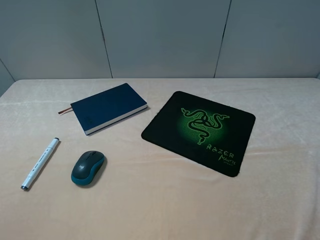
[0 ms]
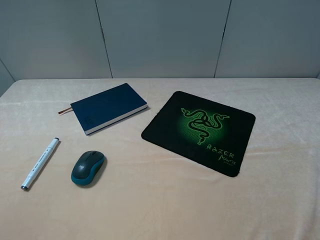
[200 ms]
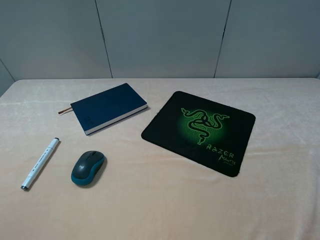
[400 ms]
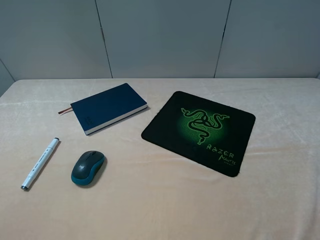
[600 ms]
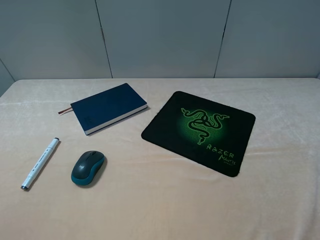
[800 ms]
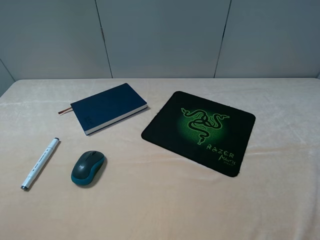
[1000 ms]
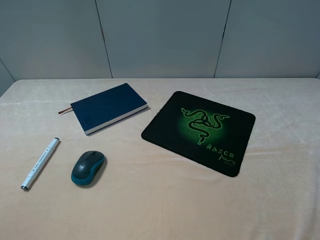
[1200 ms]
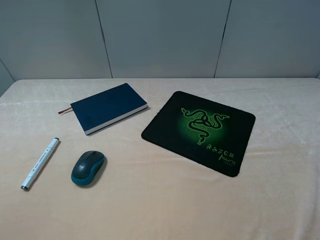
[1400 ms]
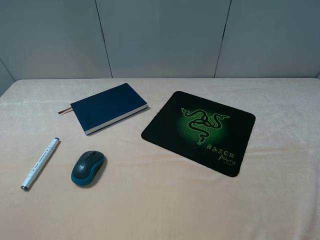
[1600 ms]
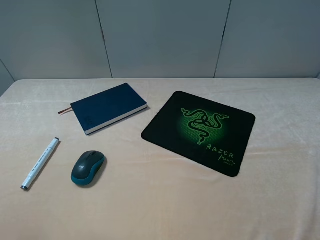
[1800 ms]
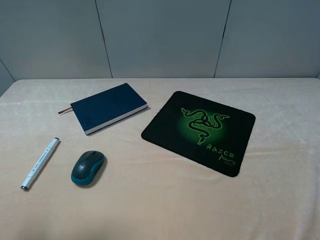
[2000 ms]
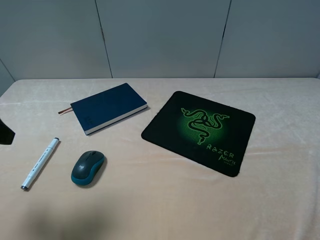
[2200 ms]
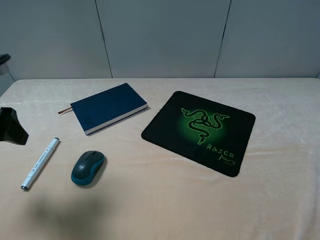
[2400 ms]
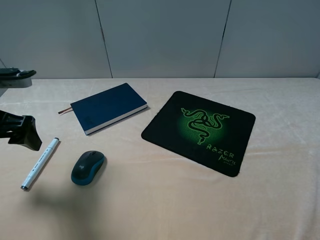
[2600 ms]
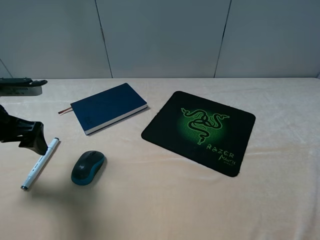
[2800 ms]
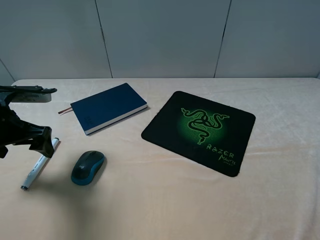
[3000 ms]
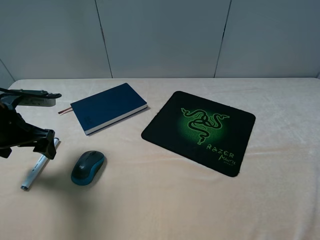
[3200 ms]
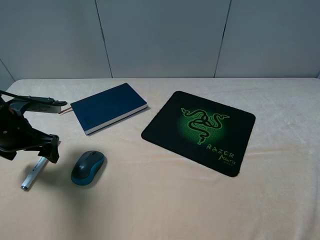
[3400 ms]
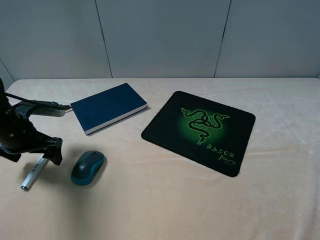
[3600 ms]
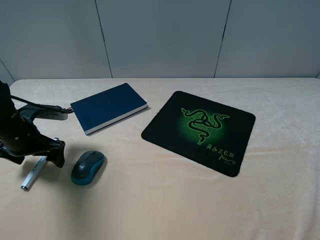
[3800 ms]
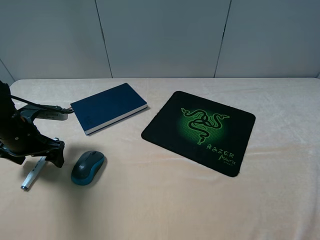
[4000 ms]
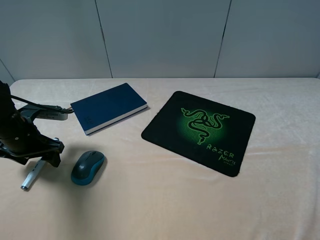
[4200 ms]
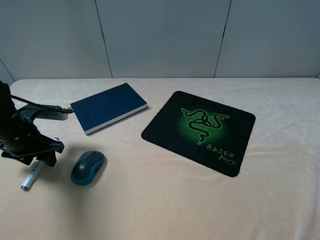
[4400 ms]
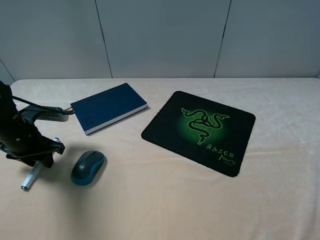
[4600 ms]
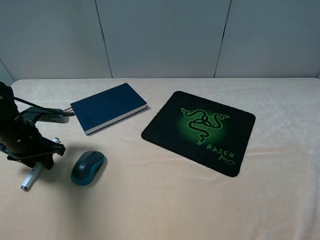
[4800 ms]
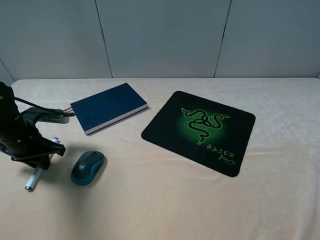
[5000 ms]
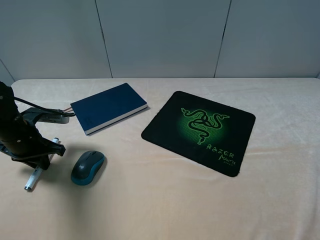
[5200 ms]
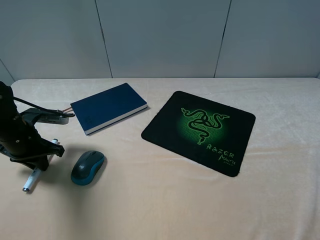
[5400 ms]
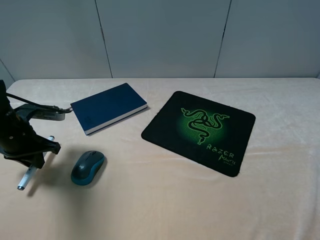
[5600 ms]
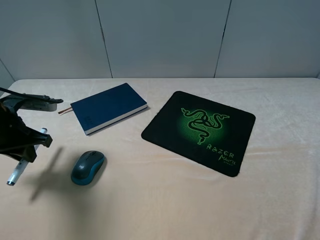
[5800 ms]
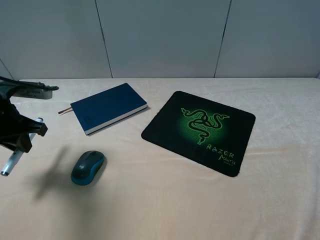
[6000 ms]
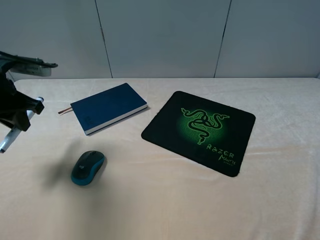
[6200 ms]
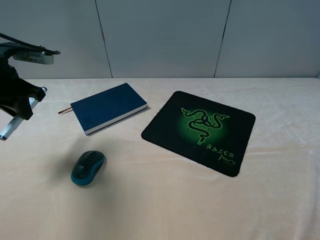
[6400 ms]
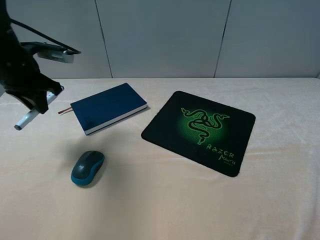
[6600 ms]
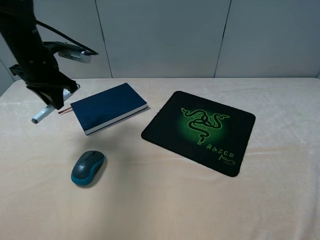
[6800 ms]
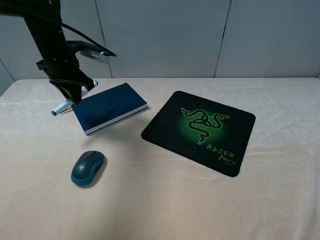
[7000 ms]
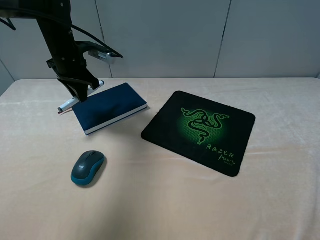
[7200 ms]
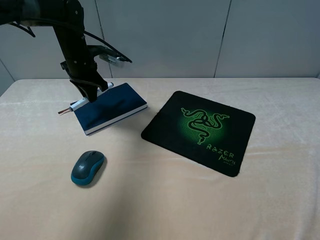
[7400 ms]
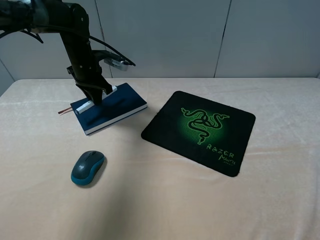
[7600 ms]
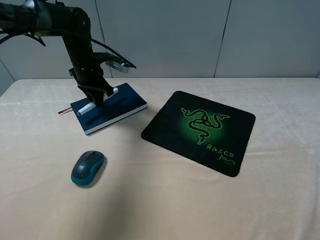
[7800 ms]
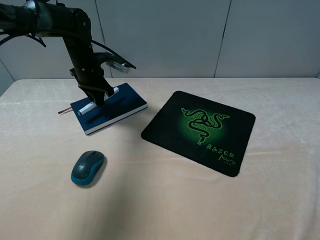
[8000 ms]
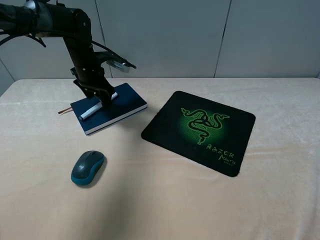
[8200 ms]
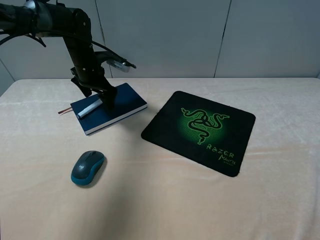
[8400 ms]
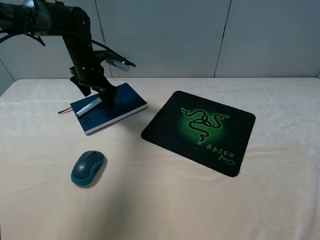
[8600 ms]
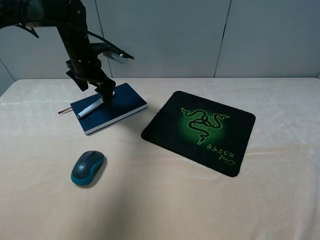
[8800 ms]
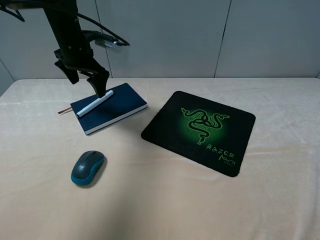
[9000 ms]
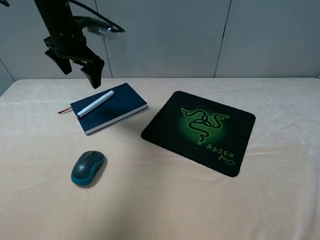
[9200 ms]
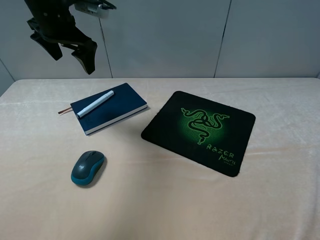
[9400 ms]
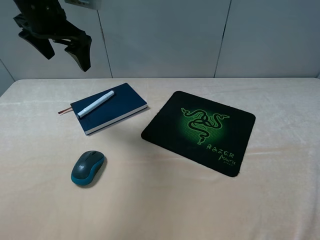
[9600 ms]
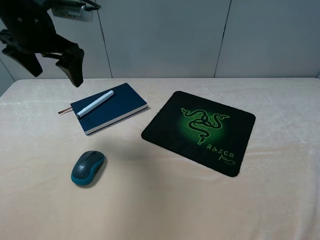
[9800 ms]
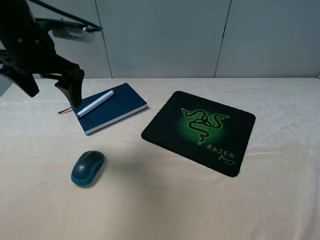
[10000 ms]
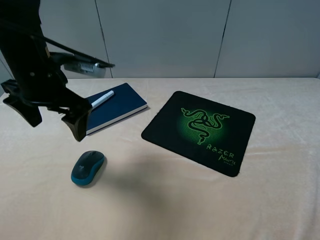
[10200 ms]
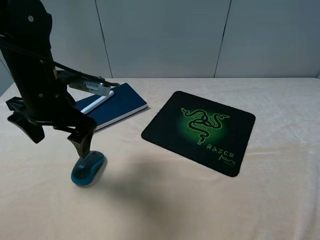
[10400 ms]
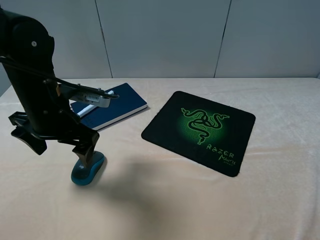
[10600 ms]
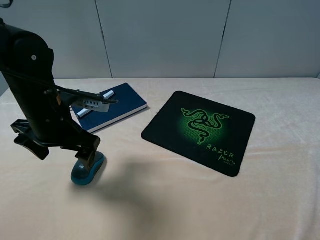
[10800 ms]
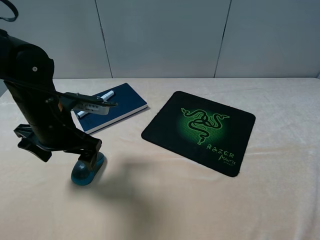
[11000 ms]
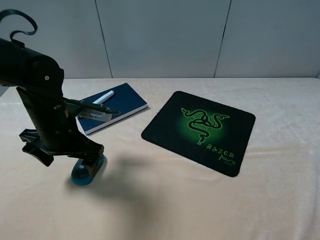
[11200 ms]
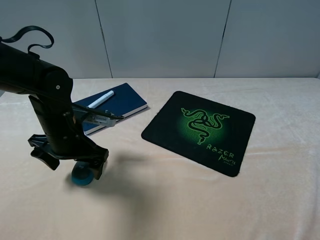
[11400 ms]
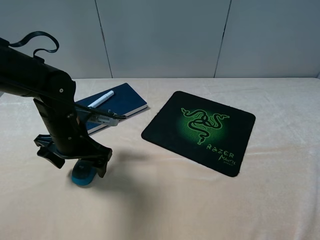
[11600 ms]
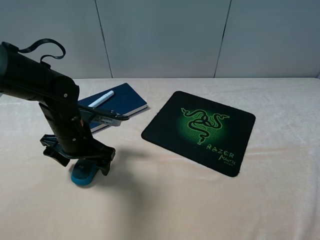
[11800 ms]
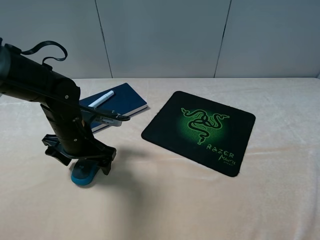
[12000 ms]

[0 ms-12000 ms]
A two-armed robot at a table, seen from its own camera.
Step, 0 ms to 5200 ms: Grasp the marker with the left gripper.
Step, 5400 ms to 8400 ms: Place the marker on the notebook with the left gripper.
1600 ms to 3000 ms: The left gripper moves forward and downward, roughly 25 cm.
3000 ms to 4400 ms: The left gripper shifts roughly 5 cm downward, and closes up.
4400 ms to 6000 ms: The left gripper heads upward, covering some 10 cm, and closes its fingers.
6000 ms to 7600 ms: The left gripper is displaced forward and to the right by roughly 20 cm.
7600 ms to 9000 ms: The left gripper heads upward, covering some 5 cm, and opens.
9000 ms to 10400 ms: The left gripper is displaced backward by some 20 cm.
10400 ms to 12000 ms: The left gripper moves downward, some 10 cm.

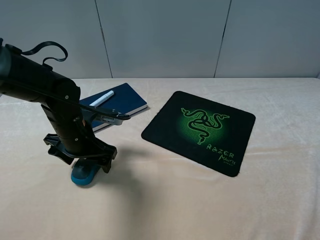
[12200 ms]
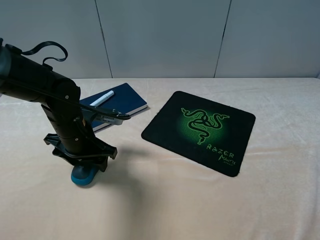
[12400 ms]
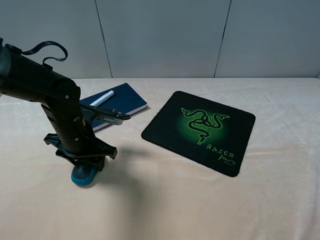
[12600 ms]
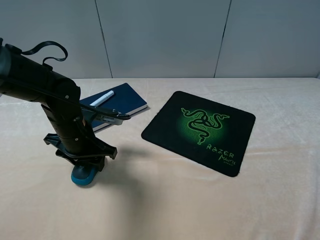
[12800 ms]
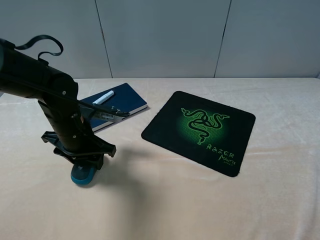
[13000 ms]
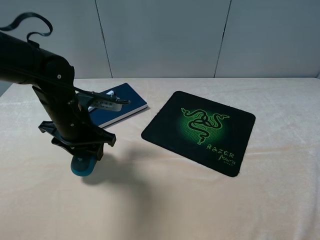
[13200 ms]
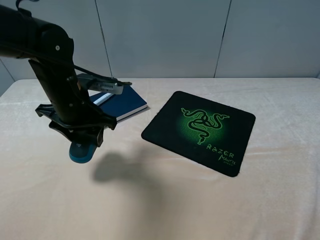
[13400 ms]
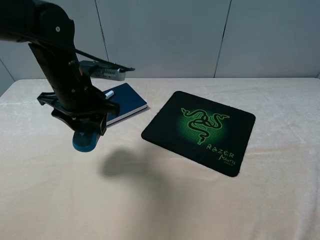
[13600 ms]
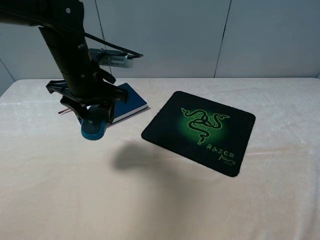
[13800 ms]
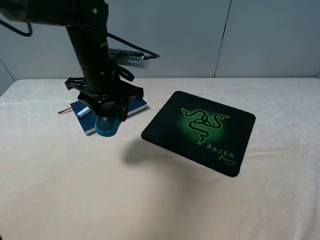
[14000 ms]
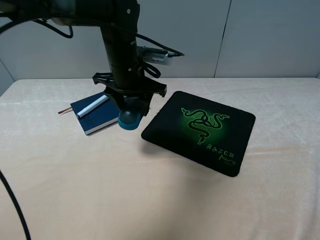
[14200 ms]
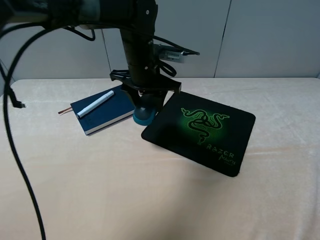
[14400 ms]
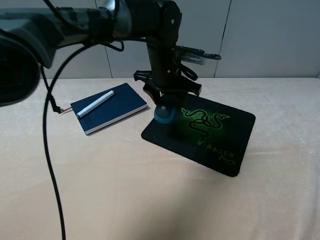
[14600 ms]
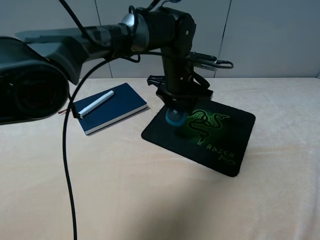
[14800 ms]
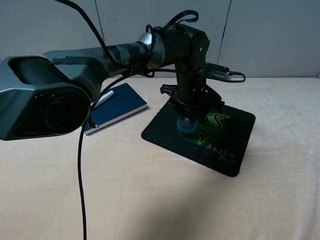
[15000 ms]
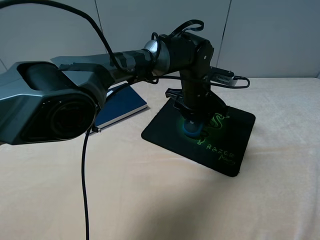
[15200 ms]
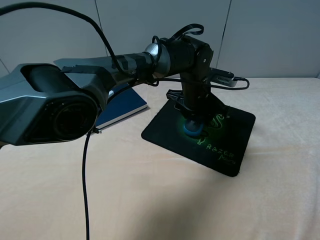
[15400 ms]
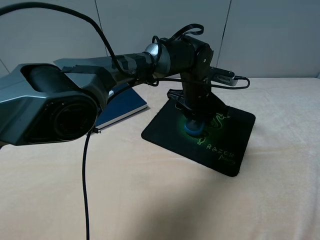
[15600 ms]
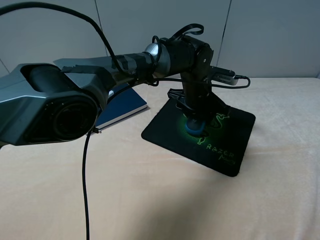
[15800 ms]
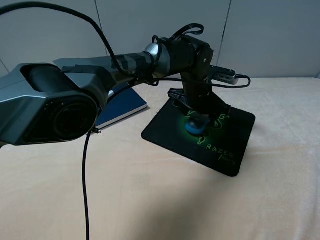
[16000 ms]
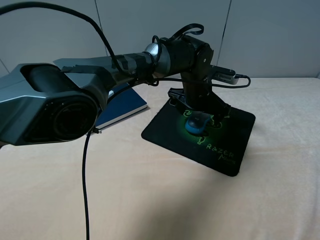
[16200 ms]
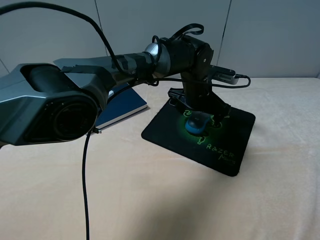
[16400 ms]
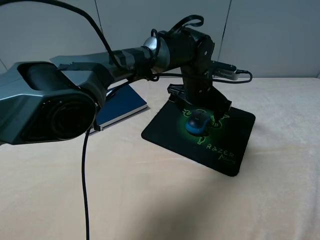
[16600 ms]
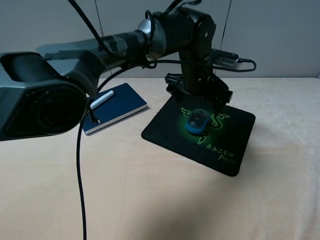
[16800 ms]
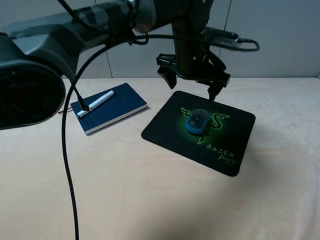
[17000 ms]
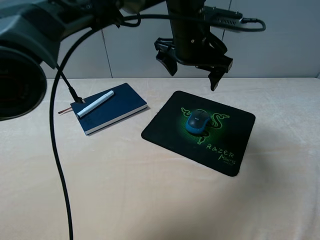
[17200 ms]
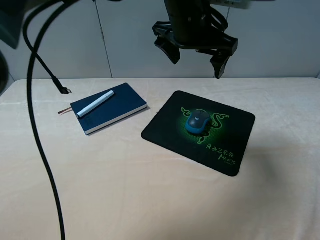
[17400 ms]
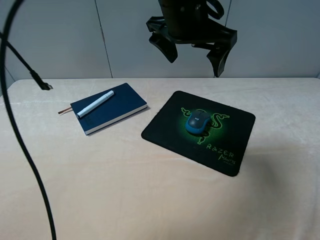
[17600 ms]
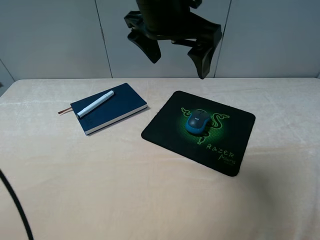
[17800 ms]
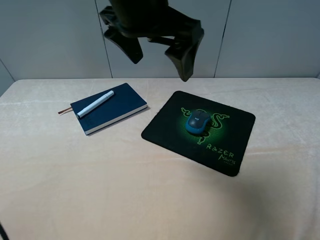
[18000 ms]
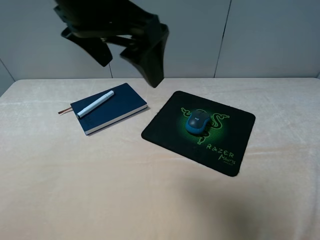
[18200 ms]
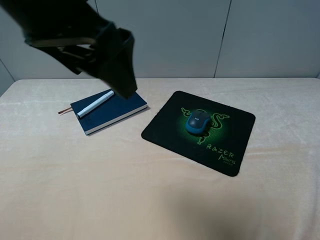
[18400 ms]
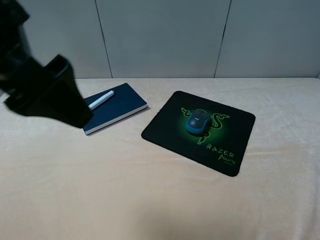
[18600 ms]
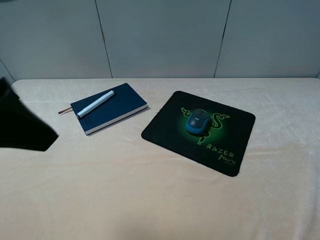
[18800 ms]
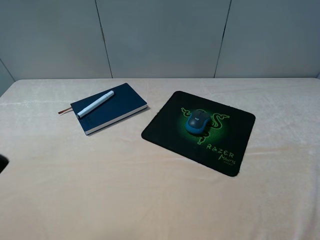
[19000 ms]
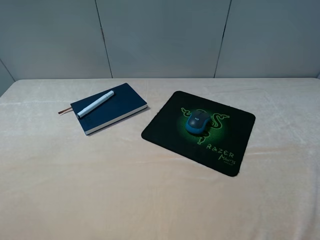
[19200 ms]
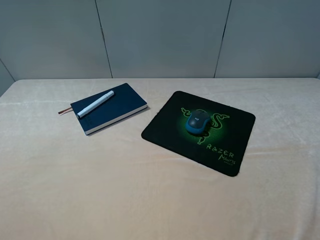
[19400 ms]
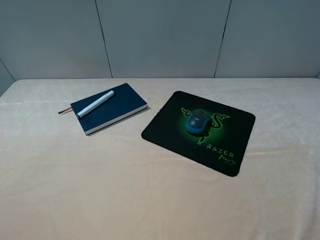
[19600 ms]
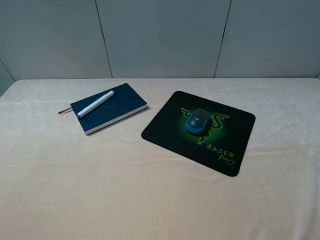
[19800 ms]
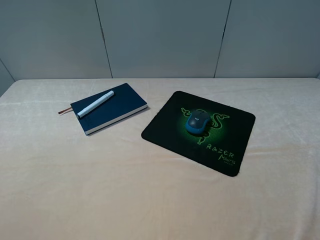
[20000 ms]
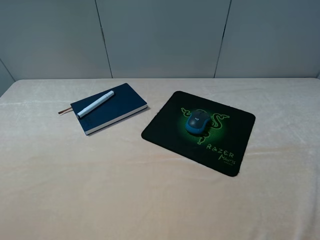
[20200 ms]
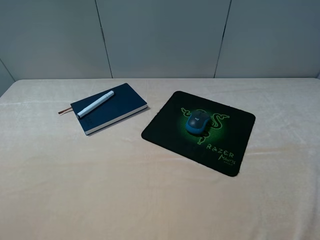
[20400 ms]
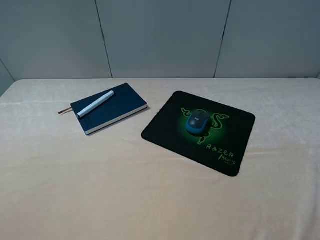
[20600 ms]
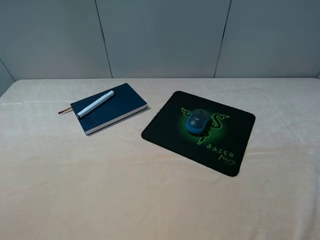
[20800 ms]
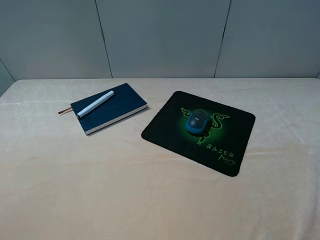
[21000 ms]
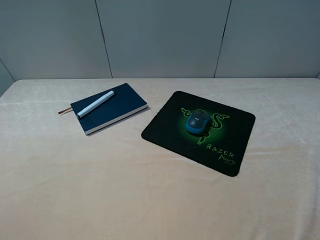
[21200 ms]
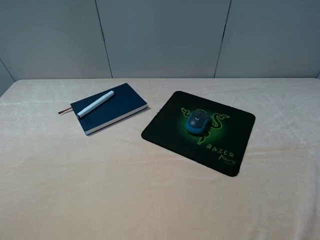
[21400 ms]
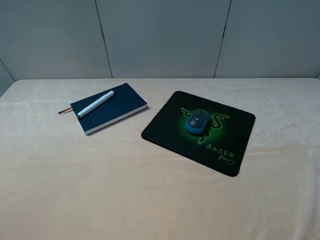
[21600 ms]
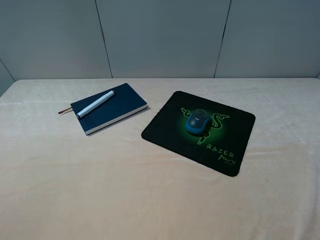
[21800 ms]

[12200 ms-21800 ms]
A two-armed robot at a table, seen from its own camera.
Step, 13000 ms to 16200 ms: Place the mouse on the mouse pad with the left gripper.
12200 ms to 13800 ms: The left gripper travels upward and forward by about 10 cm.
13800 ms to 15400 ms: The left gripper moves to the right and downward, approximately 25 cm.
15400 ms to 17000 ms: The left gripper is displaced upward by about 10 cm, and opens up.
17000 ms to 18600 ms: The left gripper shifts approximately 35 cm to the left, backward and upward.
18600 ms to 20200 ms: The left gripper moves to the left, backward and downward, some 20 cm.
